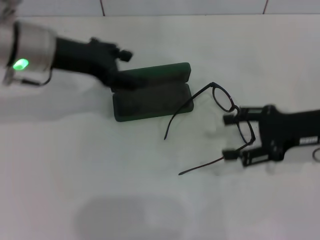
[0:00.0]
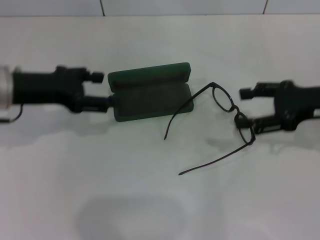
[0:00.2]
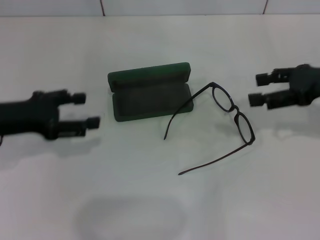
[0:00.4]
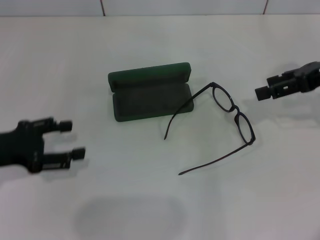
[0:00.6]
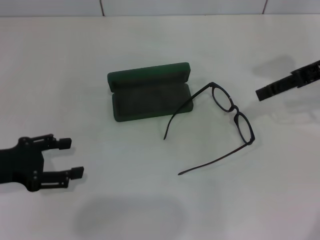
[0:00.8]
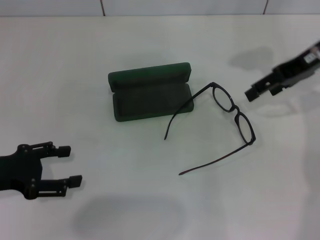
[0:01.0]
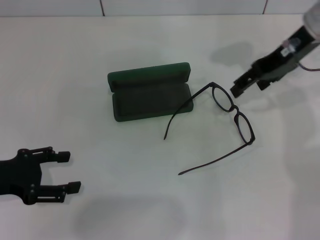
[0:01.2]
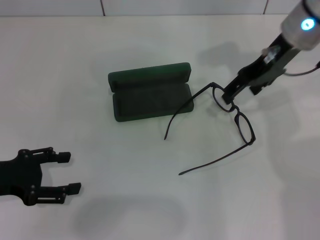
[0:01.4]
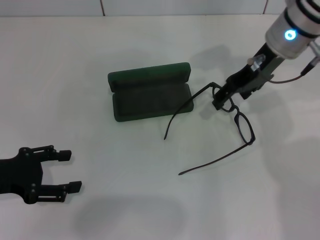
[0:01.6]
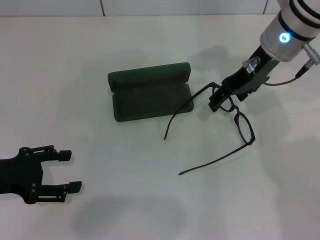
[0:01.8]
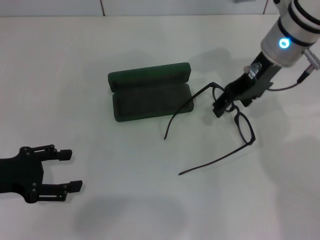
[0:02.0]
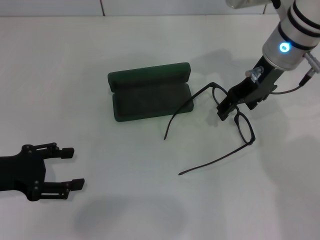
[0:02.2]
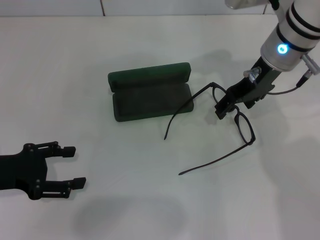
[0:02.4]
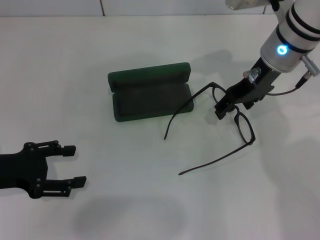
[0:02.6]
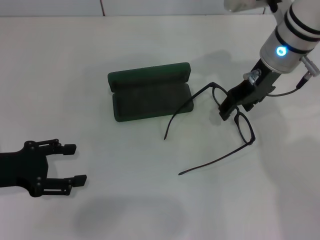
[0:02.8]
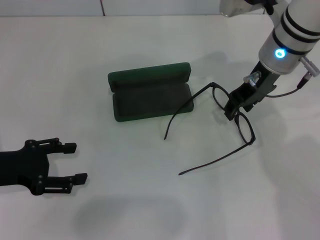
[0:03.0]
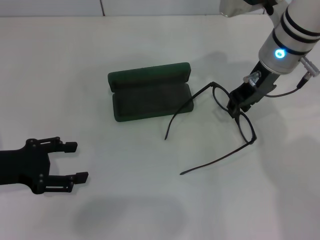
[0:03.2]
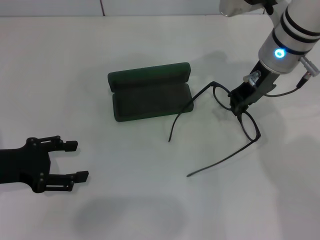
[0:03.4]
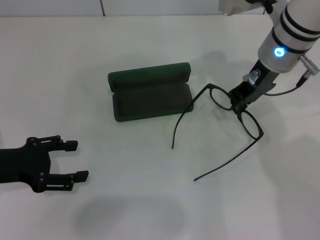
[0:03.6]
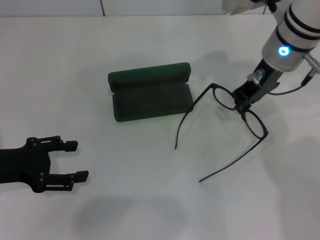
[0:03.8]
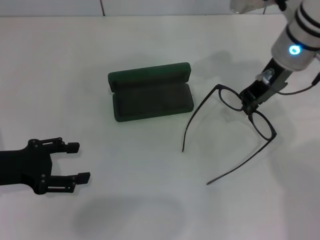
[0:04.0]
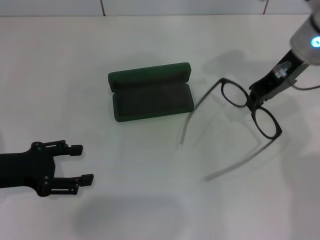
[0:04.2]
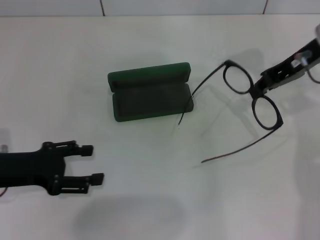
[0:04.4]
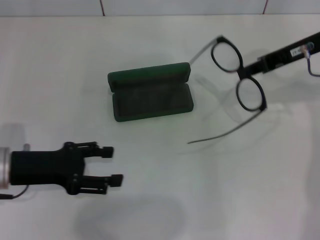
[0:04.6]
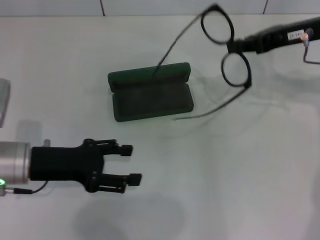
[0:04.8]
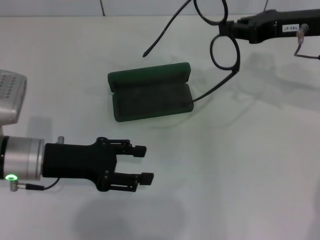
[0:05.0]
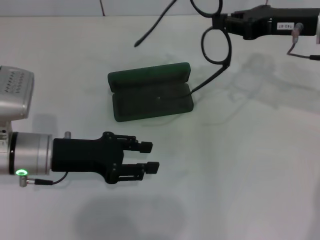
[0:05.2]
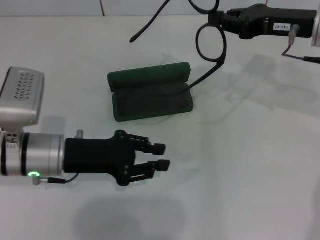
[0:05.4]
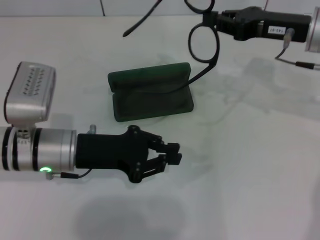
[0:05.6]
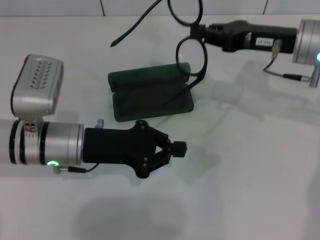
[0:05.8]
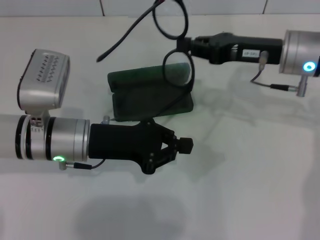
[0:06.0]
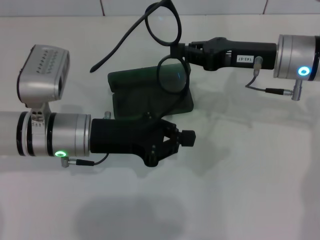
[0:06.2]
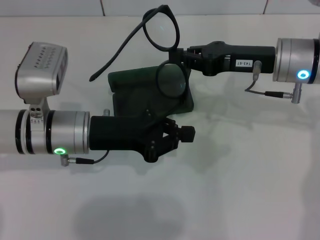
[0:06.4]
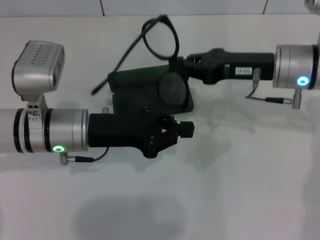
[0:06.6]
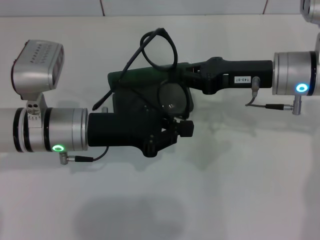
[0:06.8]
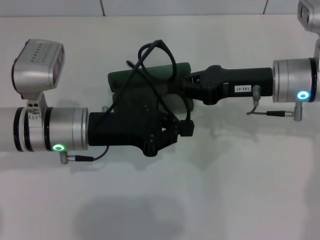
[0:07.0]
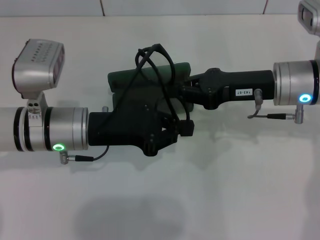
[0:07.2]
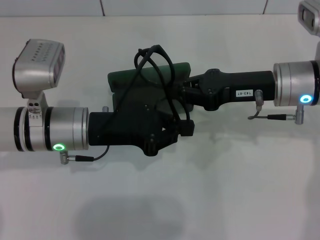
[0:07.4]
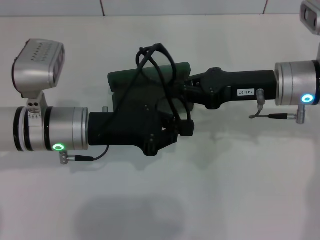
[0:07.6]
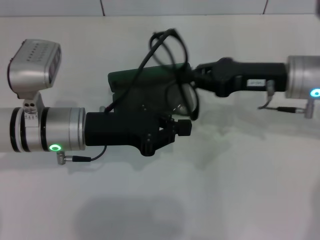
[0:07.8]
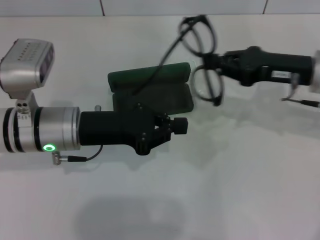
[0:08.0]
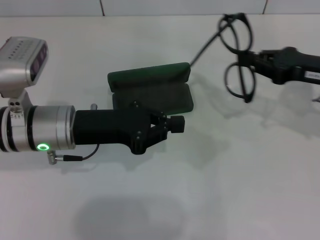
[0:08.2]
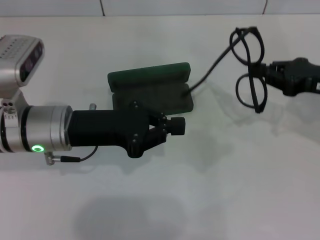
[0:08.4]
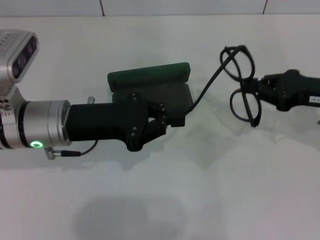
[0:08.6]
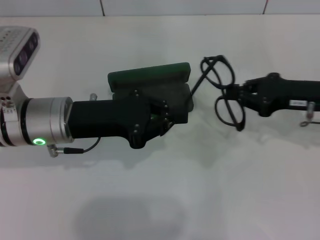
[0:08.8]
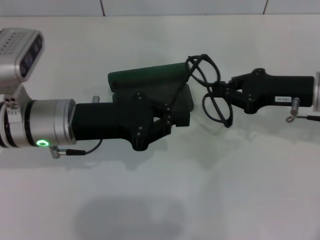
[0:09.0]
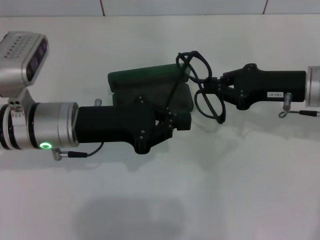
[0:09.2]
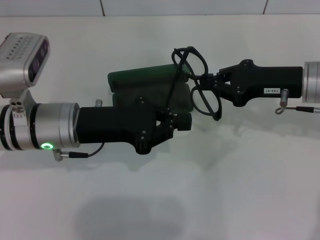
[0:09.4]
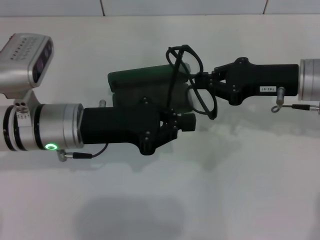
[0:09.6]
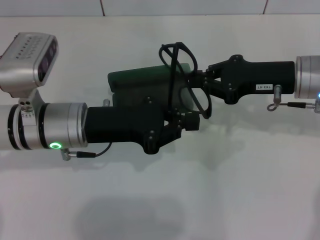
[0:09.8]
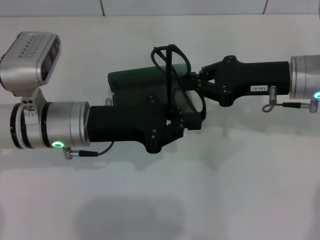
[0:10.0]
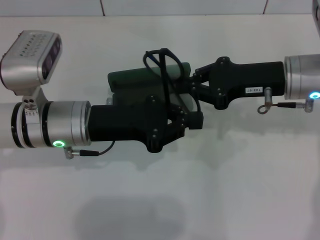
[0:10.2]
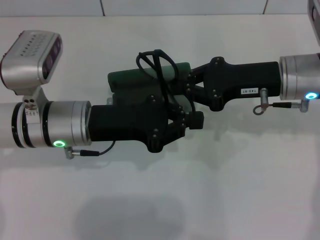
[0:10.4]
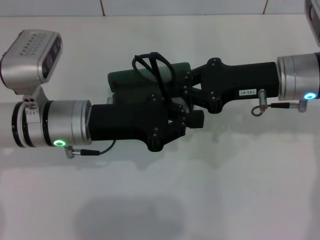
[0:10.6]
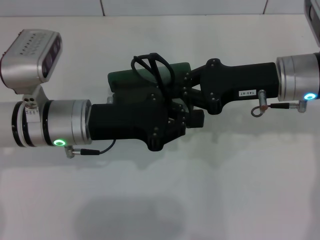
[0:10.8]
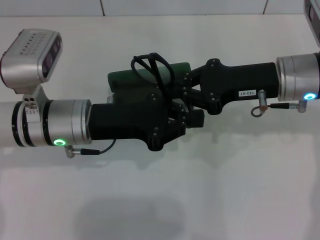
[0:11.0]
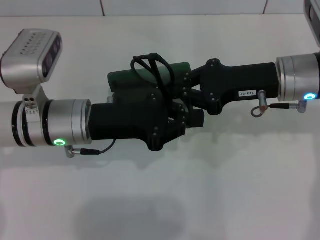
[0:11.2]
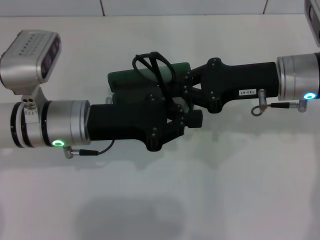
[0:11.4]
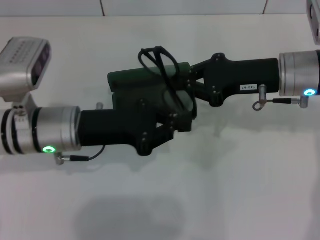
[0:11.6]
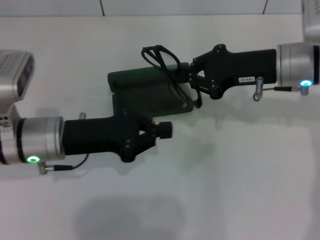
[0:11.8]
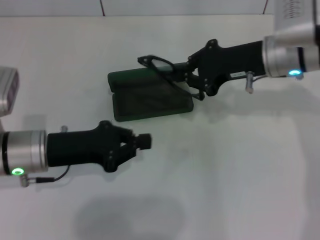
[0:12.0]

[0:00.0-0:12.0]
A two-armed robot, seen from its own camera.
Step, 0:00.0 to 0:03.4: Grab the eyeglass frame with your right hand.
Step, 0:03.6 to 0:10.6: Fold the frame with your left hand.
0:00.0 to 0:01.6: The right gripper travels to the left, forward and upward by some 15 cm; the left gripper moves backward, to the left and downward, approximately 20 cm.
0:01.6 to 0:03.0: The grippers make only small movements.
0:03.0 to 0:04.4: The right gripper is displaced to the right by about 10 cm, and closes.
0:04.4 to 0:06.0: The right gripper is displaced downward by about 5 cm. The left gripper shifts about 15 cm to the right, and closes its fingers.
0:07.6 to 0:09.0: The right gripper goes roughly 5 cm to the right.
0:09.0 to 0:10.4: The right gripper is displaced to the left by about 5 cm.
0:10.4 to 0:12.0: The left gripper travels to the left by approximately 5 cm.

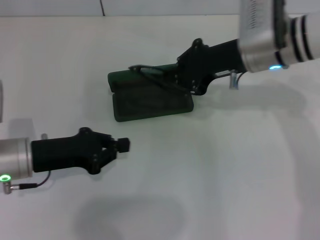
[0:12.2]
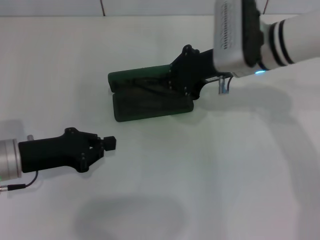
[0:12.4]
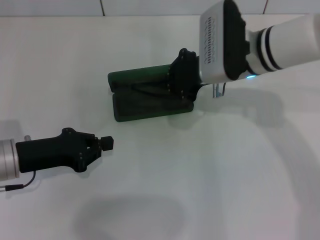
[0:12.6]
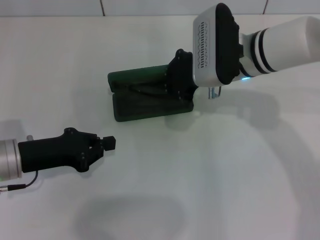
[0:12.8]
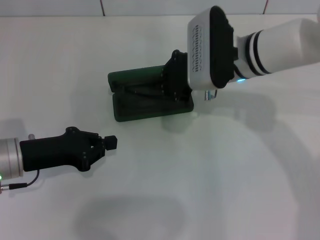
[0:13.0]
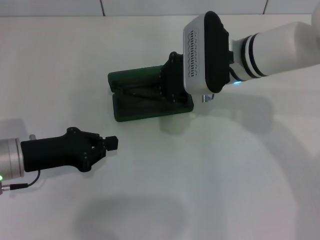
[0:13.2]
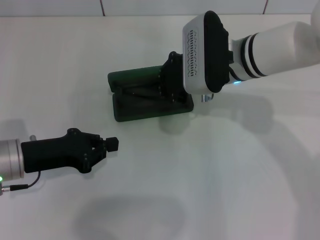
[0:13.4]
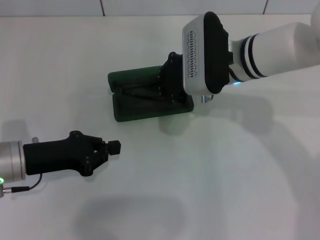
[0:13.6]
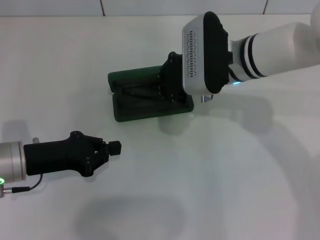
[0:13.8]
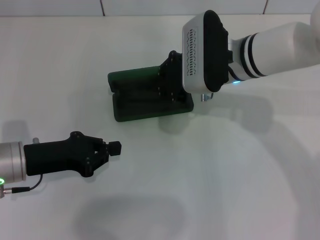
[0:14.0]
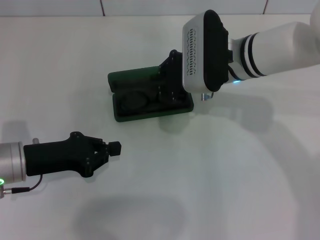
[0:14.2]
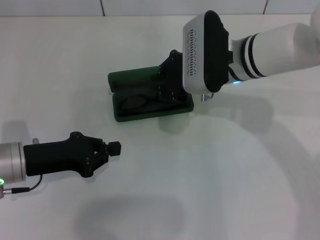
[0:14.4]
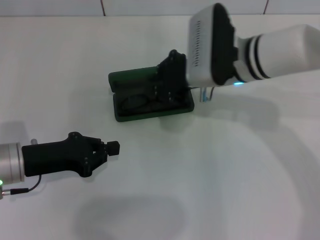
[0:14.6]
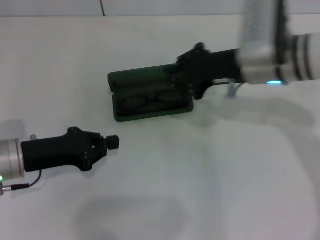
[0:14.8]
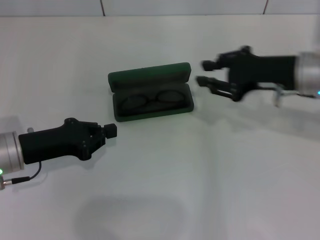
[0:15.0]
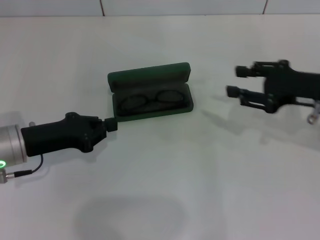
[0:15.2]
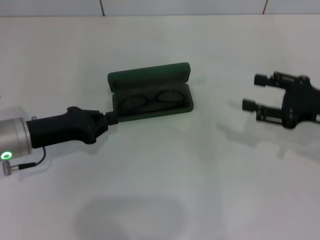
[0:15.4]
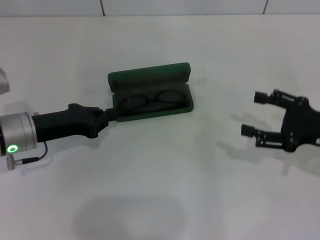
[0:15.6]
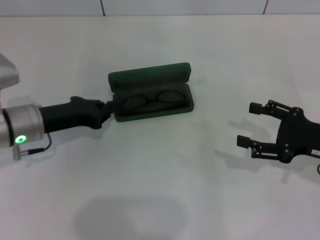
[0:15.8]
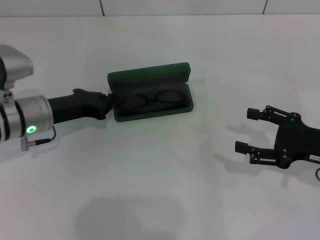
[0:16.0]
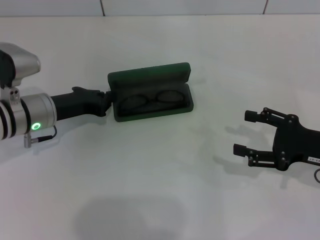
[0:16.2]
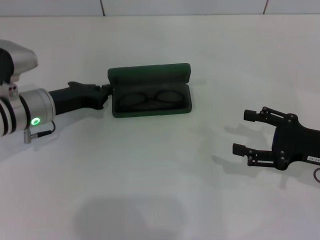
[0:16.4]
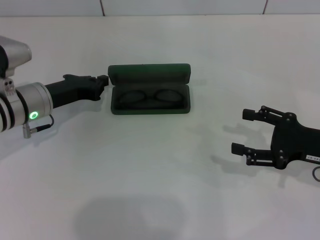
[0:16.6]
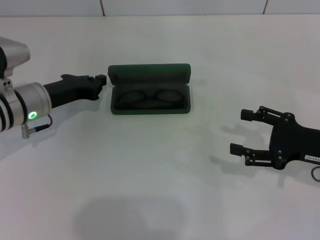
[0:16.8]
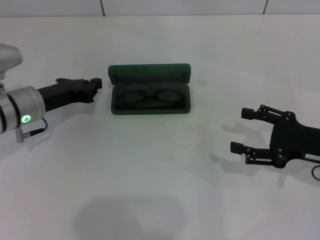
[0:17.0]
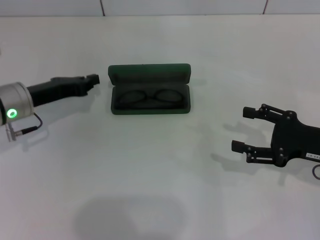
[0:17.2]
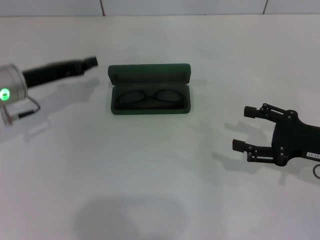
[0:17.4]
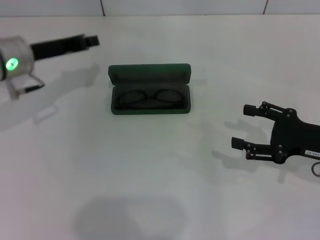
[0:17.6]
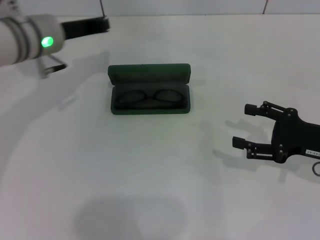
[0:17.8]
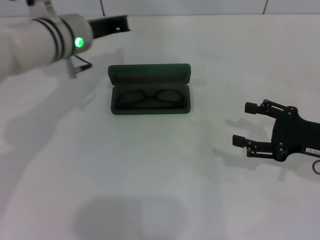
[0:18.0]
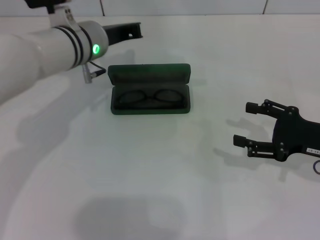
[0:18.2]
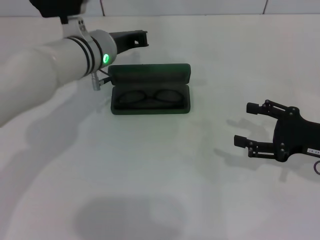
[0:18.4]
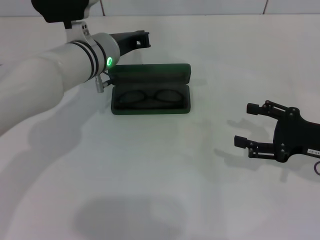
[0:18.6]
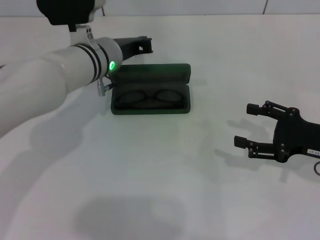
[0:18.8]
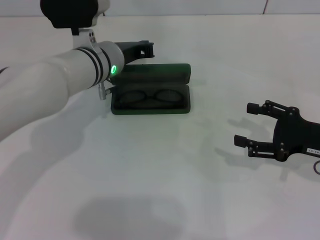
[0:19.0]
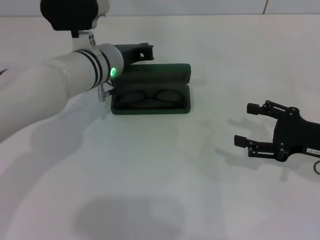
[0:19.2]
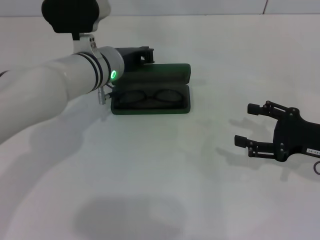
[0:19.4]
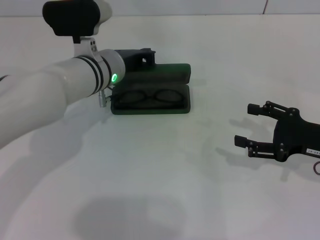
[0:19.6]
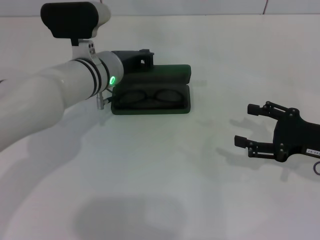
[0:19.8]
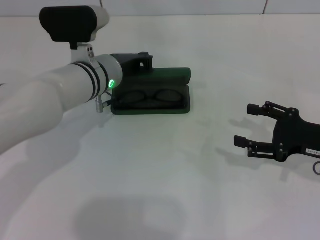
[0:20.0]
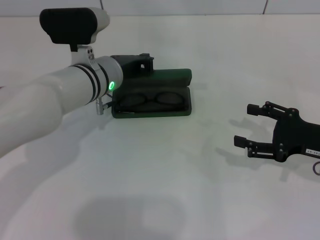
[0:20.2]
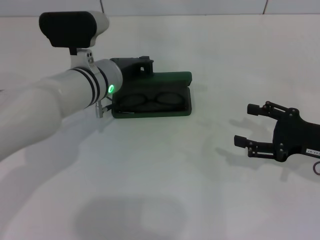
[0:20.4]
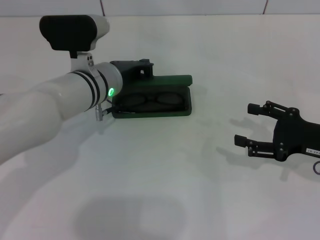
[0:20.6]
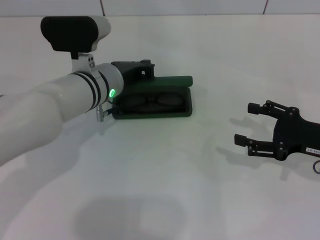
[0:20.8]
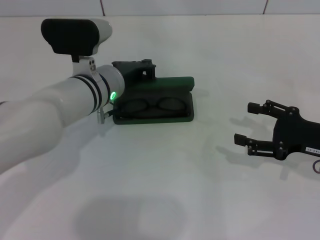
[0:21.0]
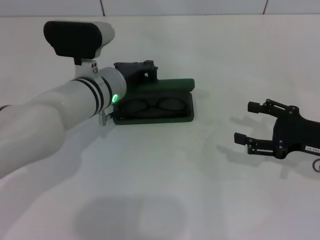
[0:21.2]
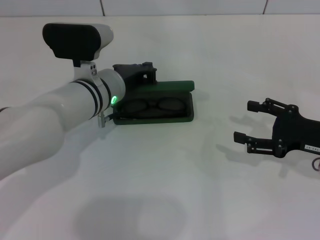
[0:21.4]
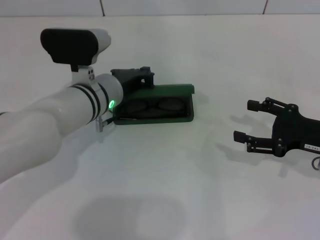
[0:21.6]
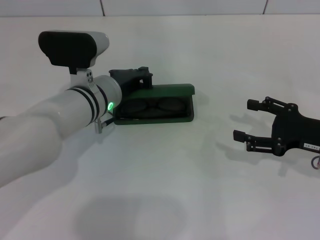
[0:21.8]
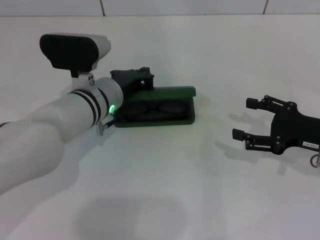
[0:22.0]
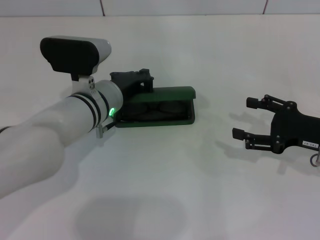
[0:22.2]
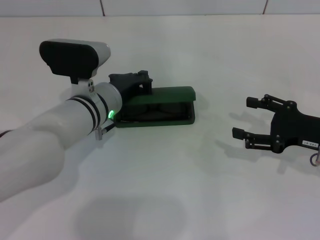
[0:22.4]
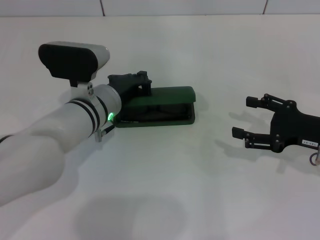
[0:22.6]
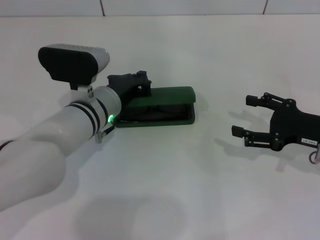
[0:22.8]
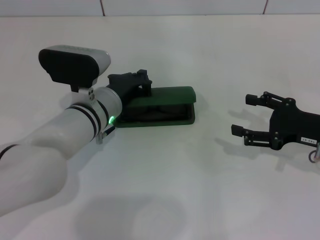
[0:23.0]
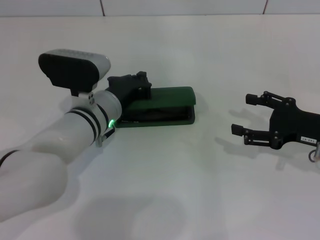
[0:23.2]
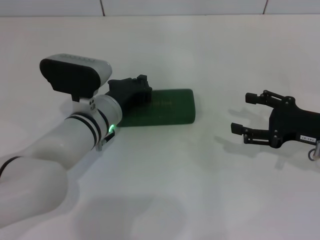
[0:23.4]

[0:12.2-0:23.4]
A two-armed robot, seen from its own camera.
Step, 0:12.2 to 0:14.0: Put the glasses into the case with your right hand.
Step, 0:14.2 to 0:23.4: Close the glasses case with your left hand.
0:12.2 to 0:13.8: The right gripper goes about 5 cm to the left.
0:13.8 to 0:15.4: The right gripper heads to the right, covering some 20 cm, and opens.
0:15.4 to 0:17.0: The right gripper opens its fingers; the left gripper moves forward, approximately 5 cm.
0:17.0 to 0:18.6: The left gripper shifts roughly 15 cm to the right and forward.
0:18.6 to 0:20.2: The grippers make only small movements.
0:20.2 to 0:21.8: The grippers stay close to where they were, moving slightly.
0:21.8 to 0:23.4: There are only small adjustments of the grippers.
